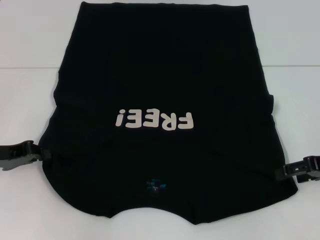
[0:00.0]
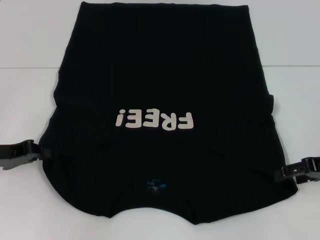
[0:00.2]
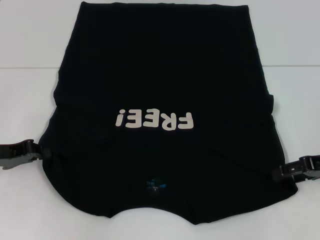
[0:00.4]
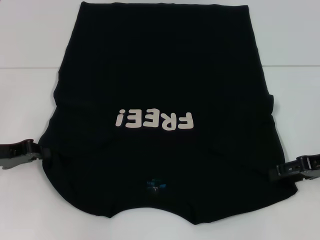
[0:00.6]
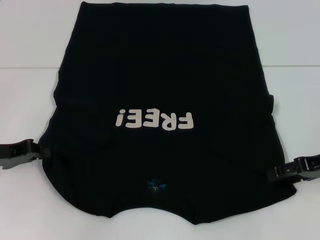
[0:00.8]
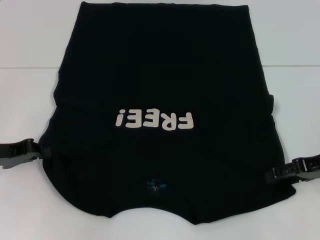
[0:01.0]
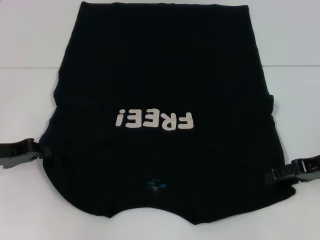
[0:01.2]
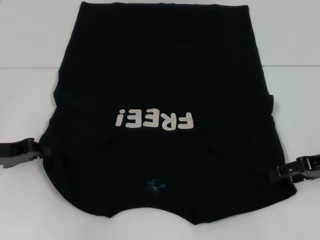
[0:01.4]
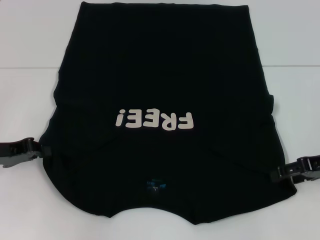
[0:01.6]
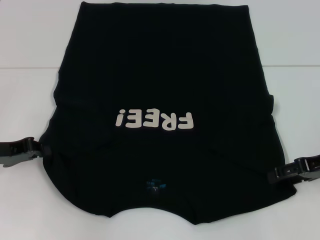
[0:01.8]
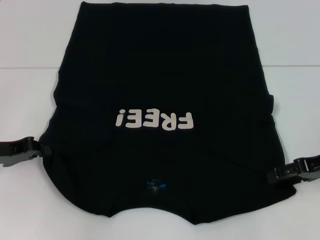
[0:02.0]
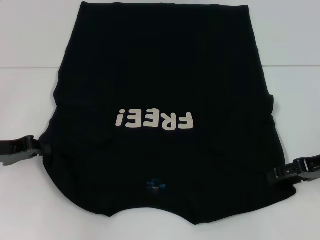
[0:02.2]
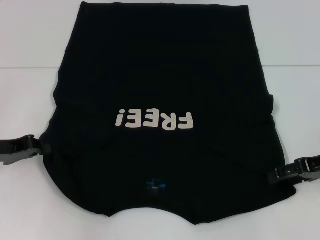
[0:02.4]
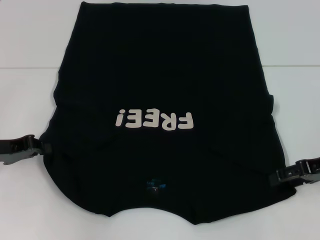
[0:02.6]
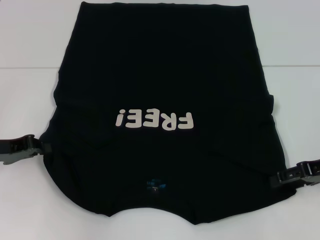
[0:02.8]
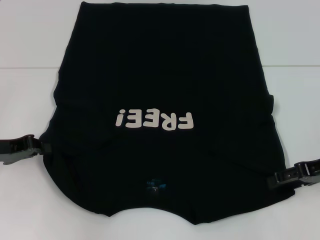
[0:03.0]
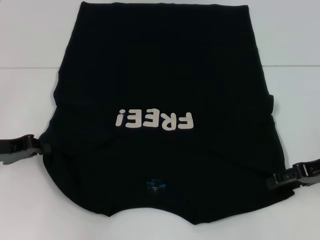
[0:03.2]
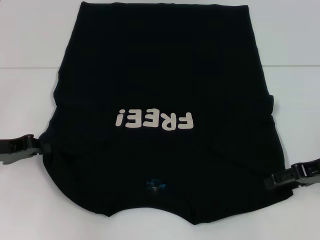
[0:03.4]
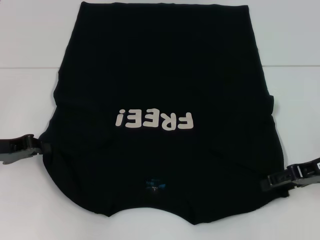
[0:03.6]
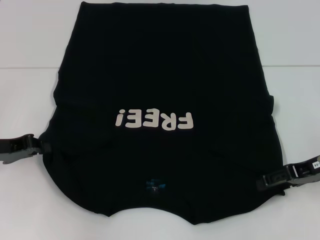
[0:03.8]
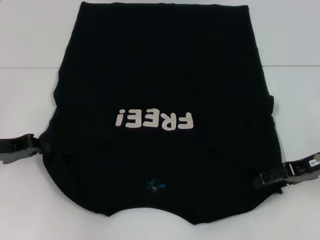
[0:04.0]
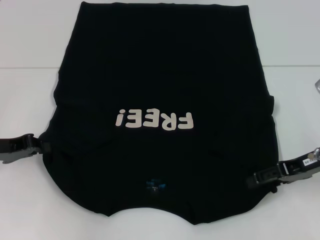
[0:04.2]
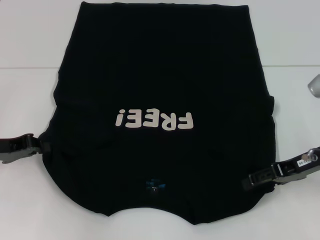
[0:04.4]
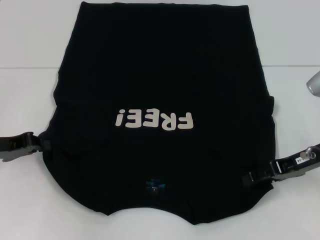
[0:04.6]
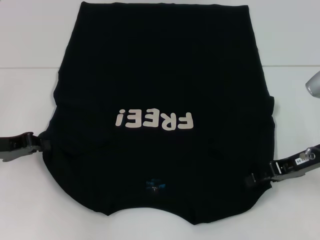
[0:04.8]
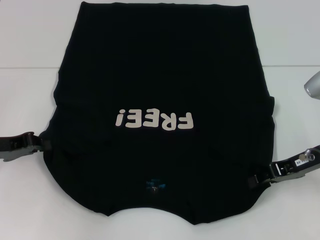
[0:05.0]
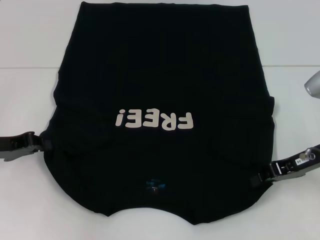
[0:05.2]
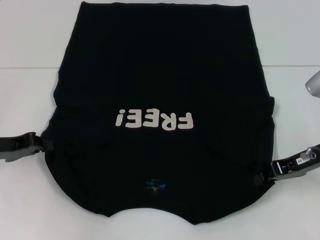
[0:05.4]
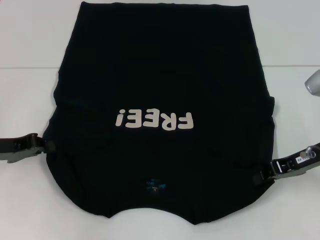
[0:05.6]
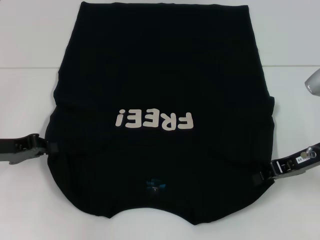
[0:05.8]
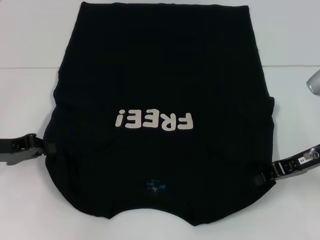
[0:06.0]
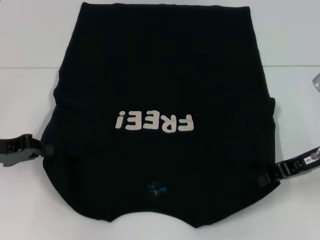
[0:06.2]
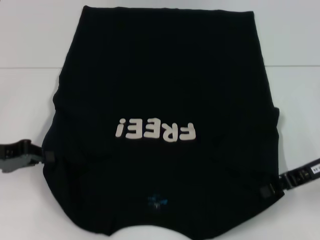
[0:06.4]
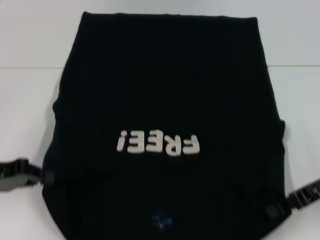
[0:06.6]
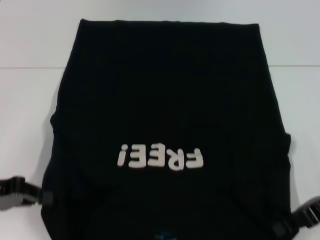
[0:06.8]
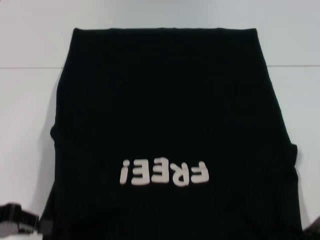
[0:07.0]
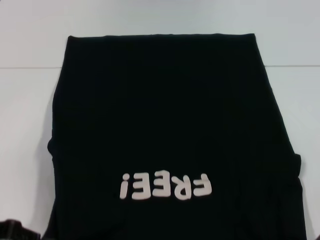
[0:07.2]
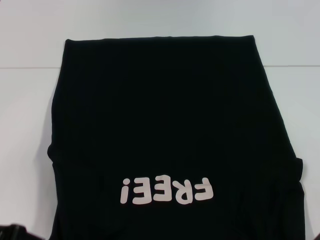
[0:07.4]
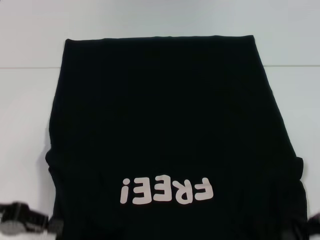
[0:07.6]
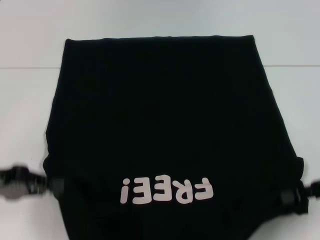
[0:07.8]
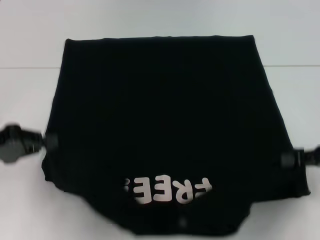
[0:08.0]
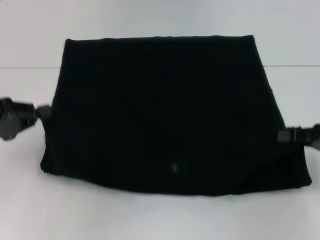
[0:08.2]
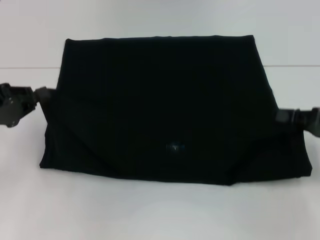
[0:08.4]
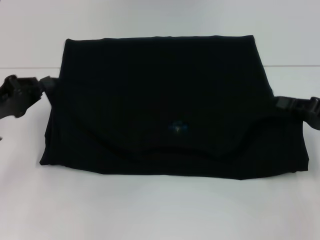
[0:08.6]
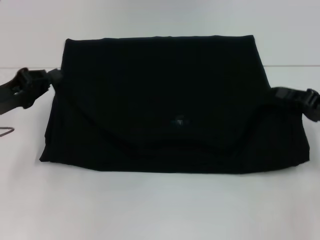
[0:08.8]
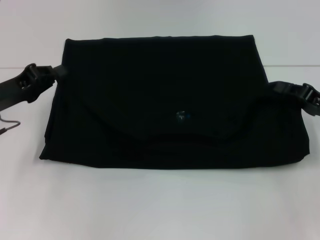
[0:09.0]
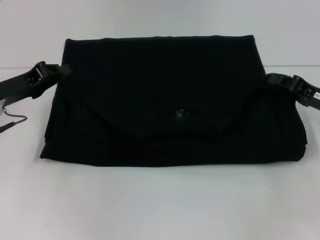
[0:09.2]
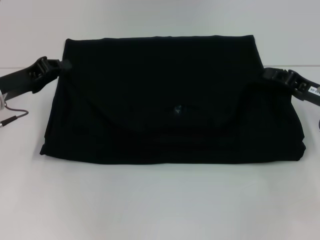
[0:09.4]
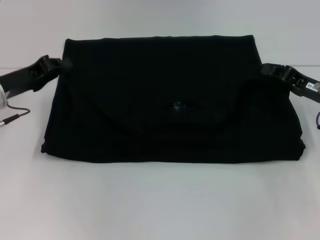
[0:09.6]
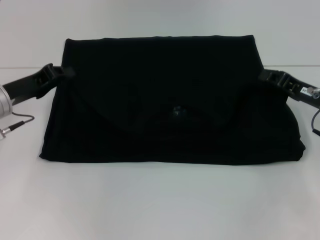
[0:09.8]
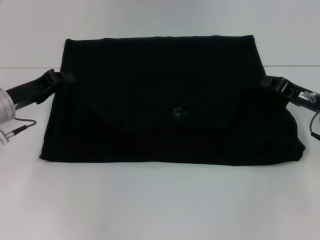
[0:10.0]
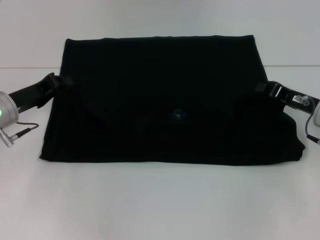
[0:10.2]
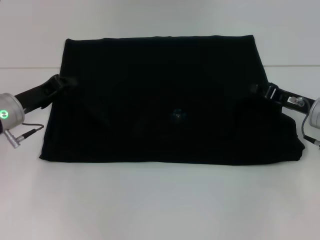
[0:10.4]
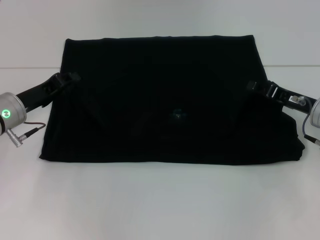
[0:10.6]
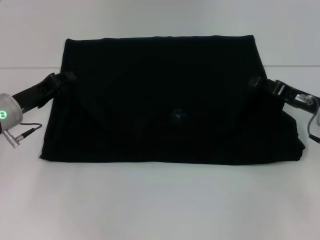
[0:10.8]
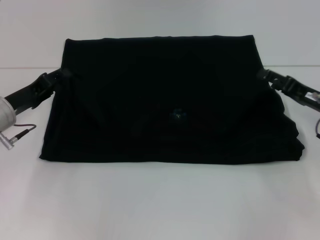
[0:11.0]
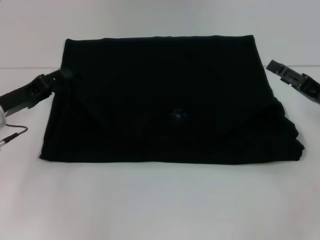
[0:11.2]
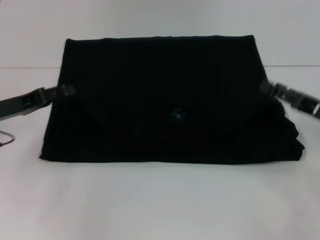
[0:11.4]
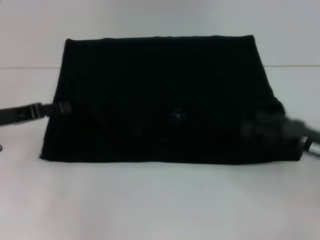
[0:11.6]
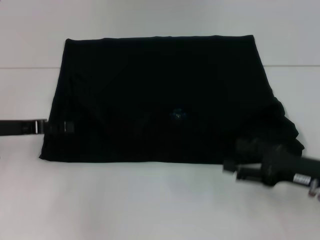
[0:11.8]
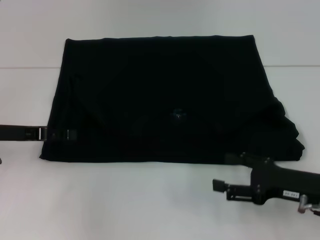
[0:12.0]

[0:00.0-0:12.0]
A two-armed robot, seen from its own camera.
Step, 0:00.0 to 0:05.6: Grab the bottom right corner with your right hand.
Step, 0:05.8 to 0:11.0: Fold the clothes with your left hand.
Step, 0:05.8 to 0:11.0: Fold the clothes with your right hand.
0:00.0 to 0:01.6: There are only small adjustments of the grippers.
0:01.6 to 0:03.0: Both grippers stay about where they are.
0:03.0 to 0:04.4: The grippers stay close to where they were, moving slightly.
0:04.4 to 0:06.0: The right gripper closes its fingers.
0:06.0 to 0:07.6: Both grippers travel together backward, some 5 cm.
0:07.6 to 0:09.0: The grippers both shift forward by some 10 cm.
0:09.0 to 0:10.4: The left gripper moves about 5 cm. The right gripper moves about 5 cm.
0:10.4 to 0:12.0: The left gripper shifts by some 5 cm, and opens its fingers. Meanwhile the right gripper is displaced backward by roughly 10 cm, and opens.

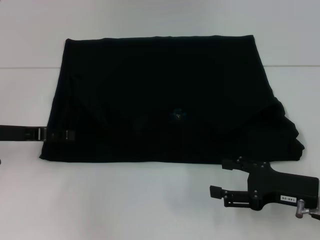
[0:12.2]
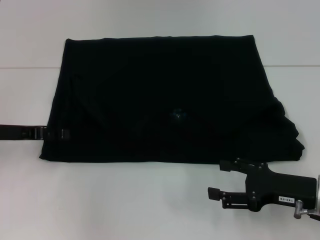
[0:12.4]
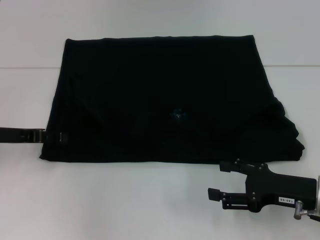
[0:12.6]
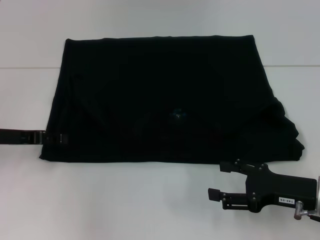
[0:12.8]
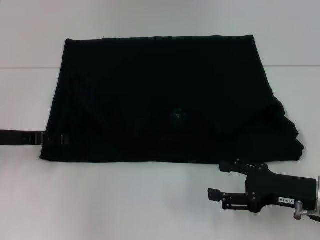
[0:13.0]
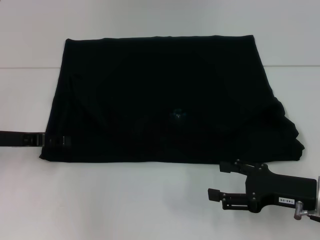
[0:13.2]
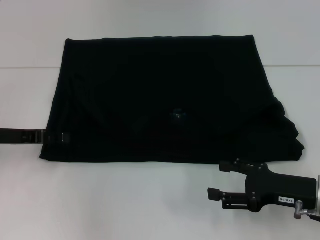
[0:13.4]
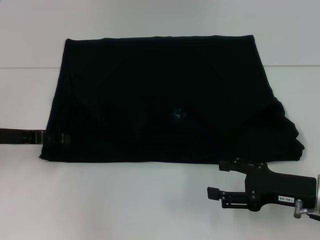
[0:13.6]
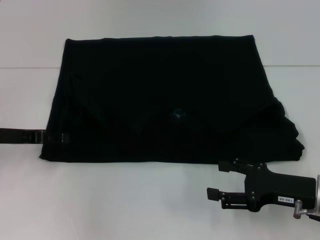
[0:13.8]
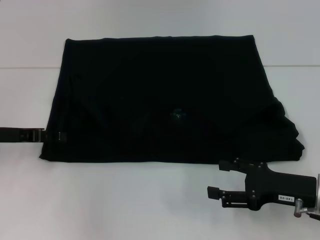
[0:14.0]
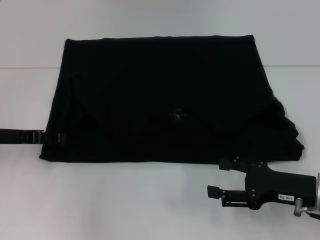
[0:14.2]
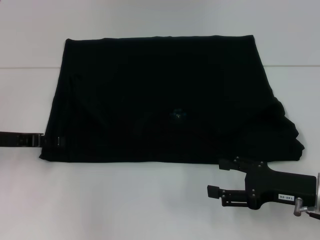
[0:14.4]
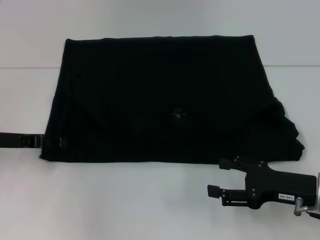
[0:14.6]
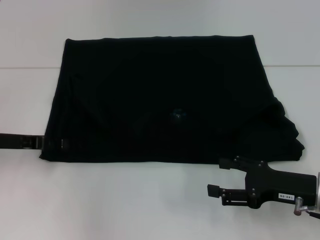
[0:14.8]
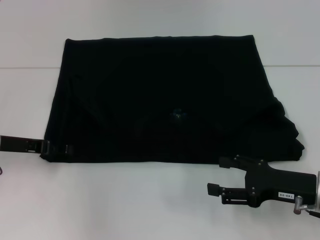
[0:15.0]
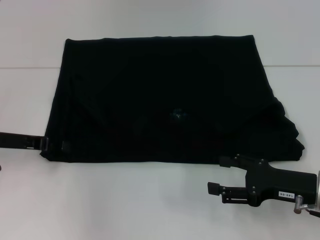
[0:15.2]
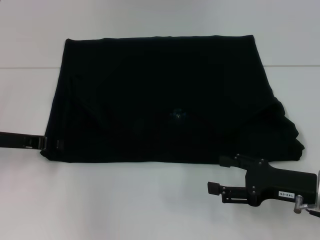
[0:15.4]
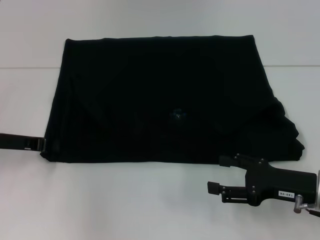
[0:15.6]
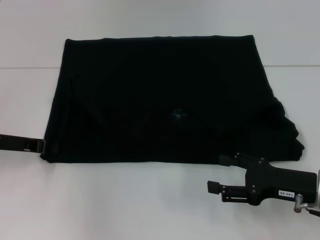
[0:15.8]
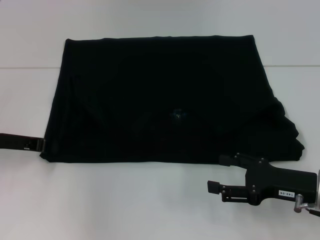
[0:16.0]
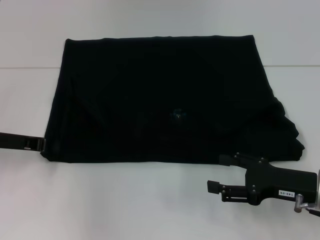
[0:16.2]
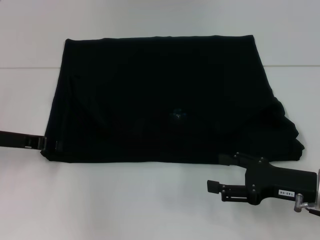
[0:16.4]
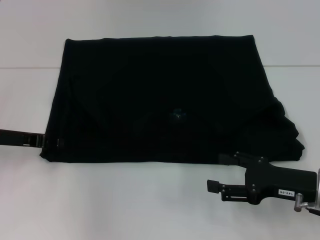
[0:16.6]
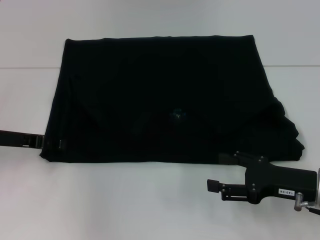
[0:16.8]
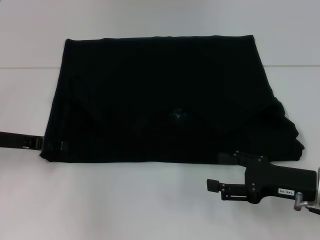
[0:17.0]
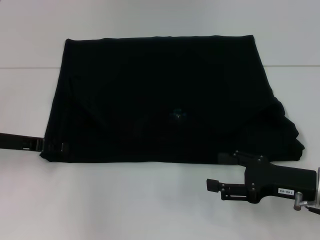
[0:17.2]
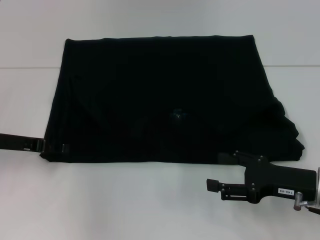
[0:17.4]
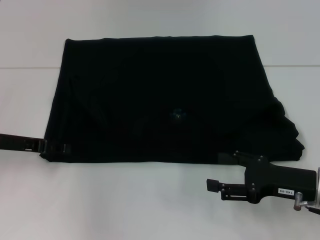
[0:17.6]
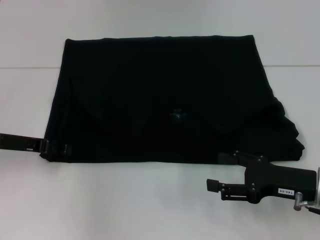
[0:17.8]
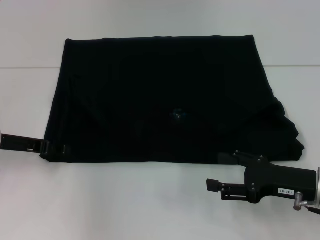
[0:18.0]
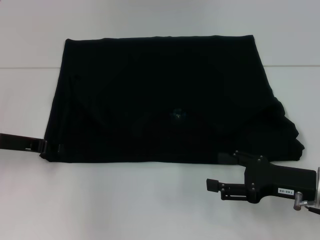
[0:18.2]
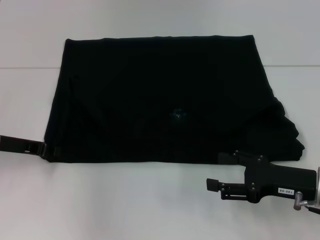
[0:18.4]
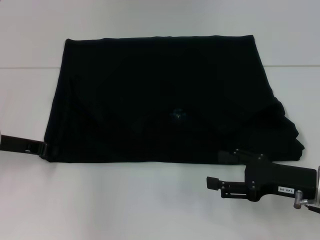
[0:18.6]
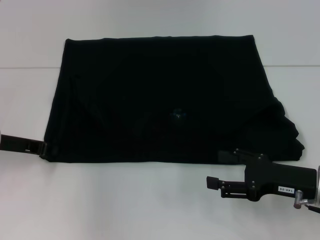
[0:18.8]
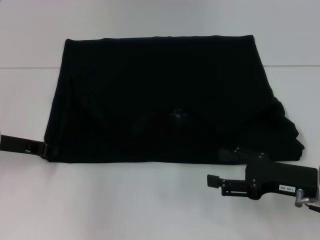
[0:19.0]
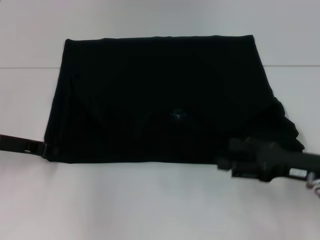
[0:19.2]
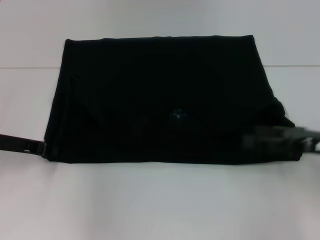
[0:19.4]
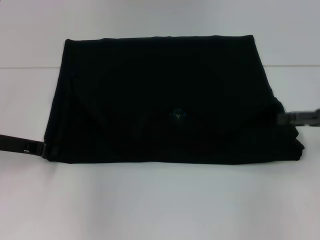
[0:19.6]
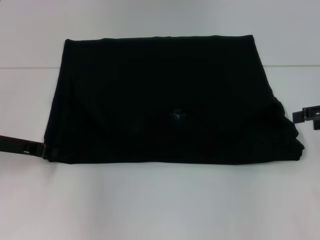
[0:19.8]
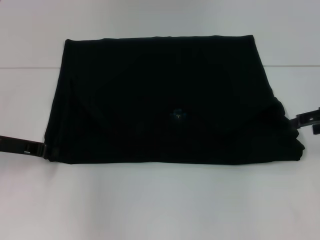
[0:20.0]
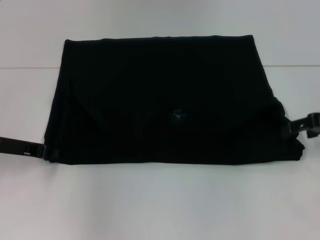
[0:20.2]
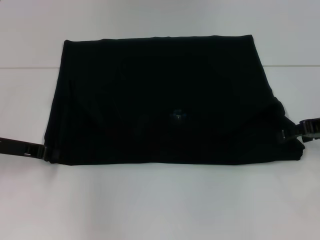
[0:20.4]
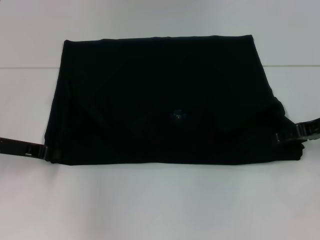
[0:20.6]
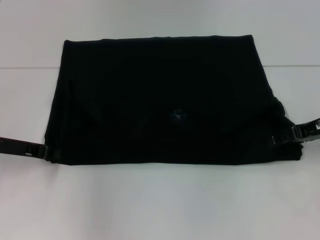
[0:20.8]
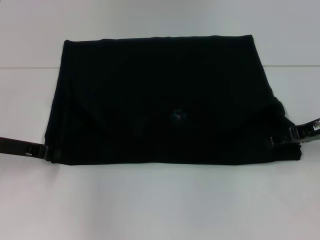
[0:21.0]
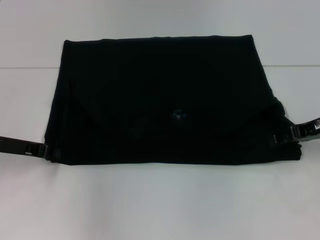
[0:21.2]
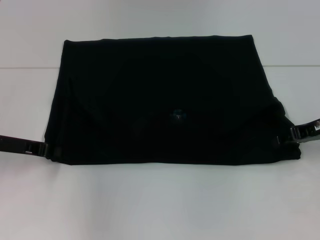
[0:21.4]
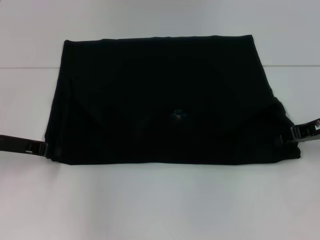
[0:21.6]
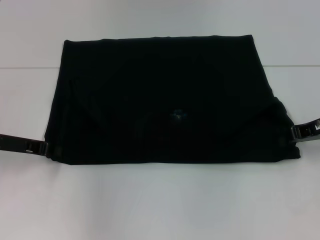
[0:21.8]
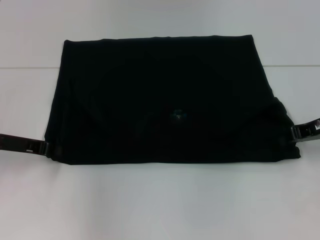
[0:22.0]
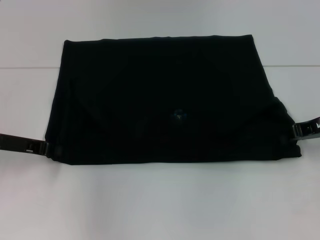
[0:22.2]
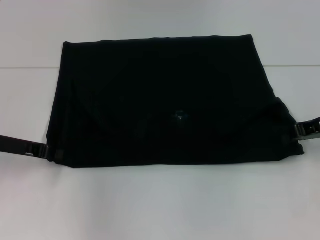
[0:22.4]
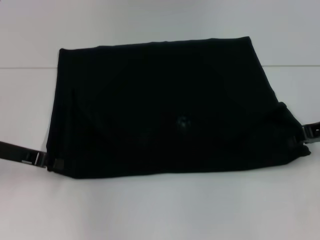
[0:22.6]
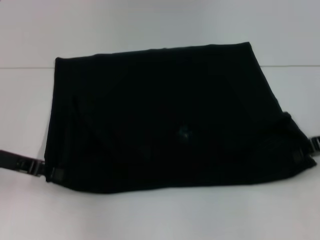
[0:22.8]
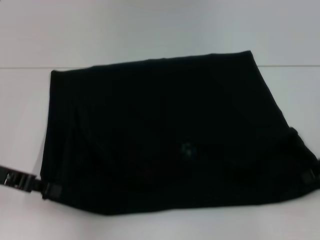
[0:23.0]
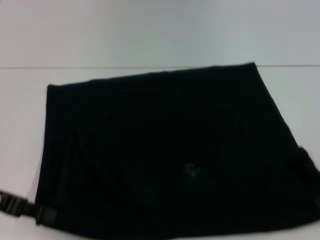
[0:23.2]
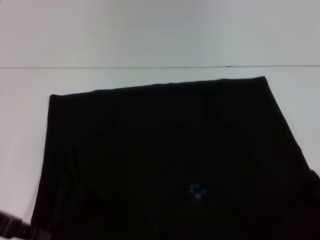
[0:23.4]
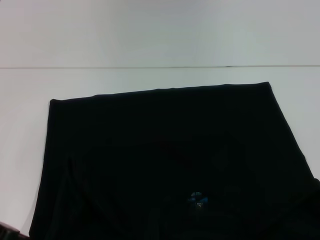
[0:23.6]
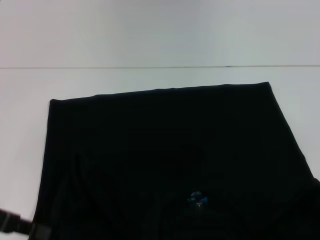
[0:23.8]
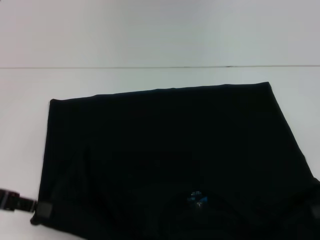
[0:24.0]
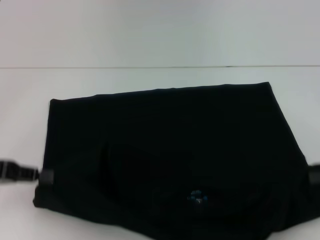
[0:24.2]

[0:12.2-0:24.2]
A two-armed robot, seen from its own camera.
Step, 0:12.2 to 0:23.2: Pull the clothes with your left hand.
Step, 0:12.2 to 0:23.2: Pull the clothes with your right hand.
0:12.2 to 0:13.8: Both grippers stay put.
0:13.8 to 0:15.2: The grippers make only small movements.
0:15.2 to 0:16.6: The left gripper closes up.
0:16.6 to 0:18.2: Both grippers stay about where they are.
0:18.2 to 0:19.8: The right gripper heads upward, to the right and forward, covering some 15 cm. The left gripper closes up.
0:19.8 to 0:21.2: The right gripper travels to the left by roughly 5 cm.
0:21.2 to 0:22.6: The right gripper closes.
0:22.6 to 0:24.2: The left gripper moves backward, approximately 5 cm, while the right gripper moves backward and to the right, some 10 cm.
